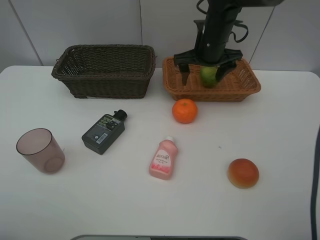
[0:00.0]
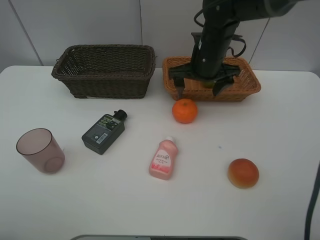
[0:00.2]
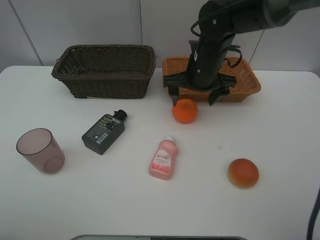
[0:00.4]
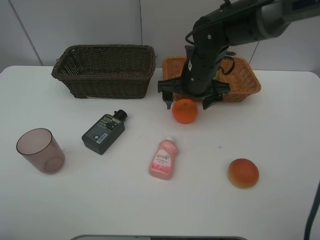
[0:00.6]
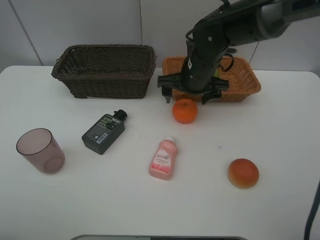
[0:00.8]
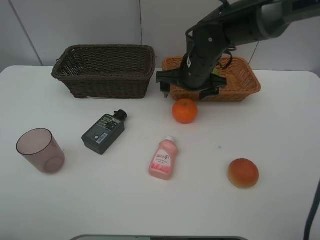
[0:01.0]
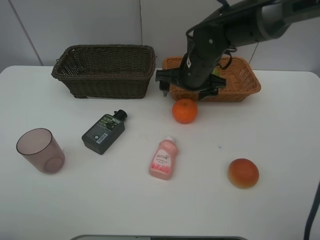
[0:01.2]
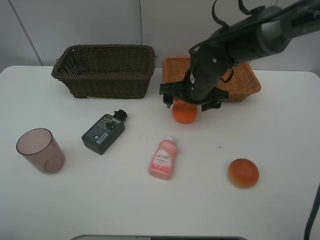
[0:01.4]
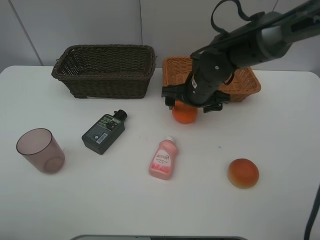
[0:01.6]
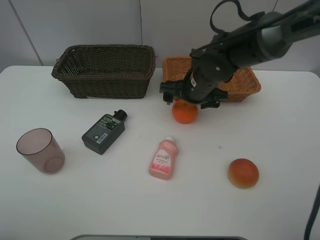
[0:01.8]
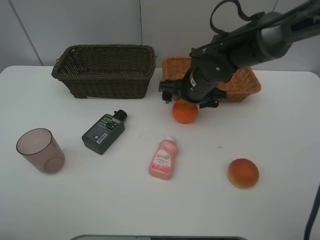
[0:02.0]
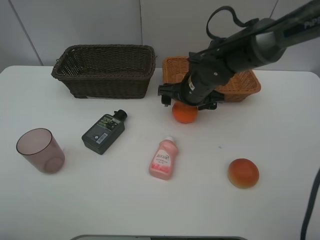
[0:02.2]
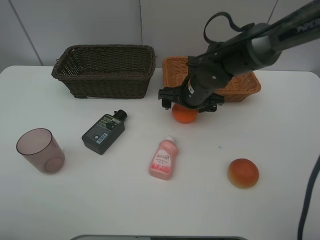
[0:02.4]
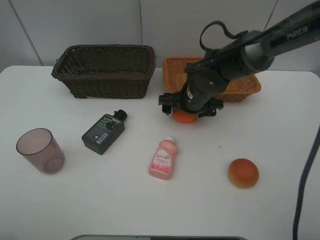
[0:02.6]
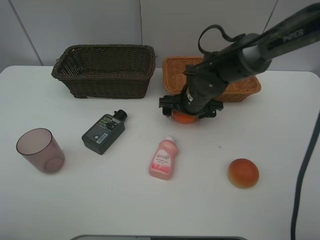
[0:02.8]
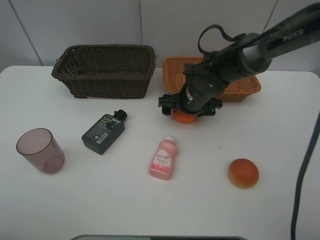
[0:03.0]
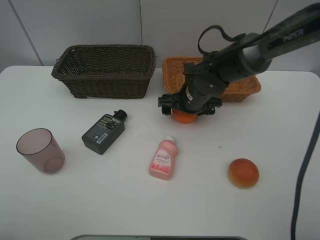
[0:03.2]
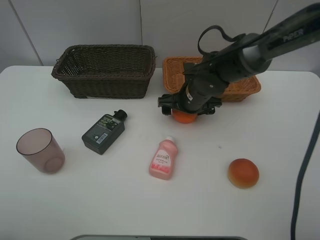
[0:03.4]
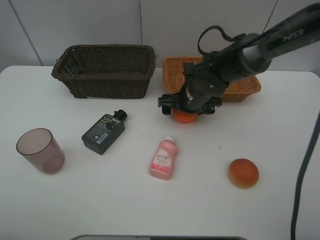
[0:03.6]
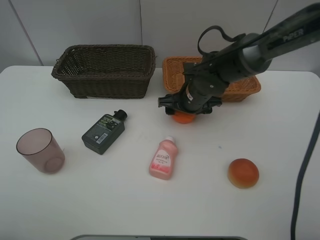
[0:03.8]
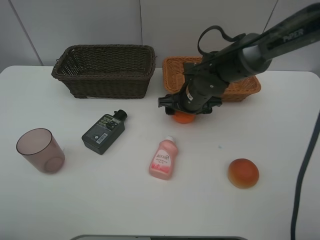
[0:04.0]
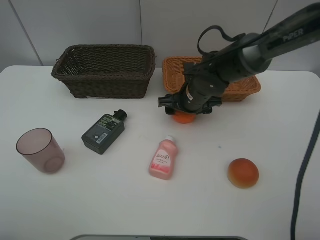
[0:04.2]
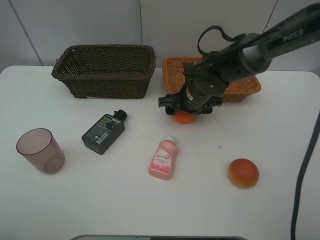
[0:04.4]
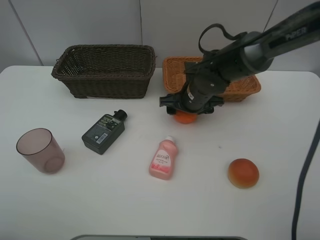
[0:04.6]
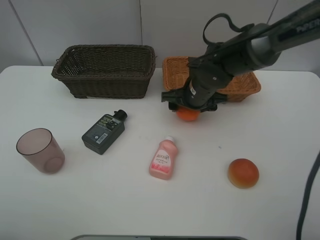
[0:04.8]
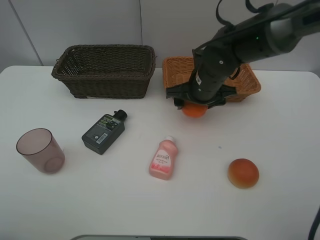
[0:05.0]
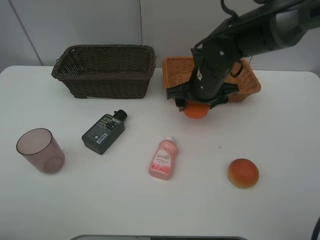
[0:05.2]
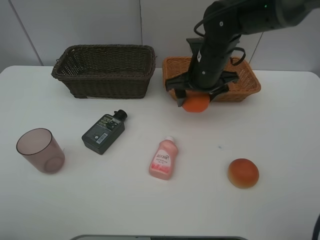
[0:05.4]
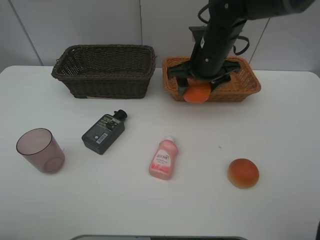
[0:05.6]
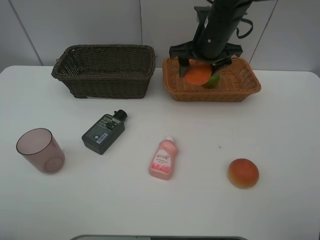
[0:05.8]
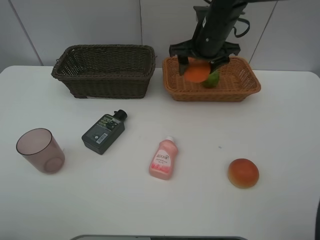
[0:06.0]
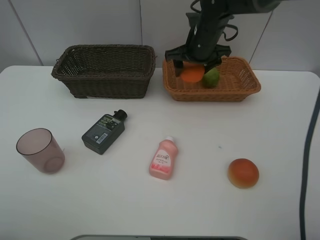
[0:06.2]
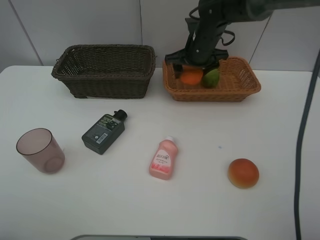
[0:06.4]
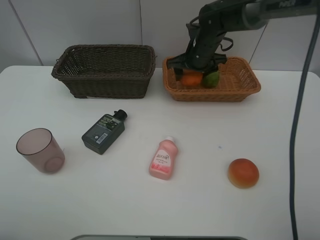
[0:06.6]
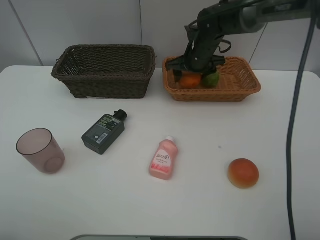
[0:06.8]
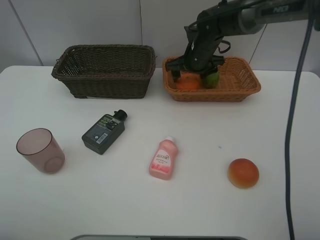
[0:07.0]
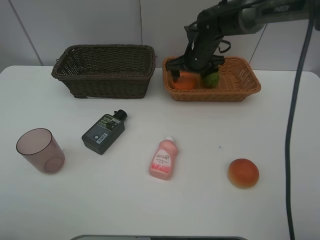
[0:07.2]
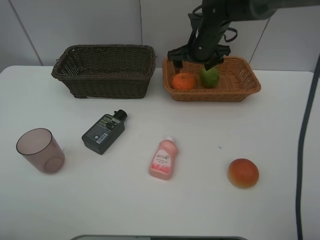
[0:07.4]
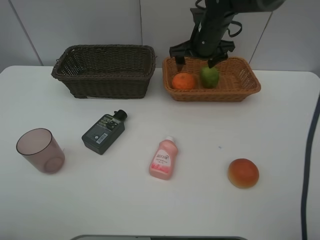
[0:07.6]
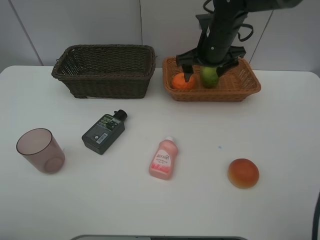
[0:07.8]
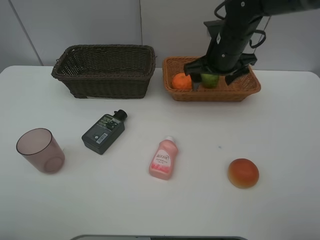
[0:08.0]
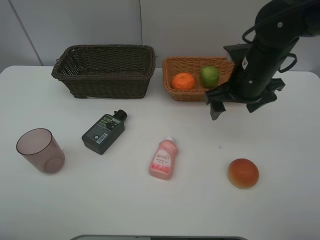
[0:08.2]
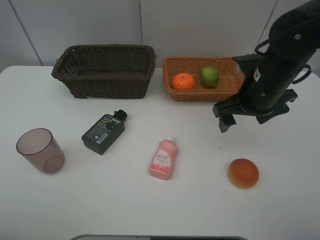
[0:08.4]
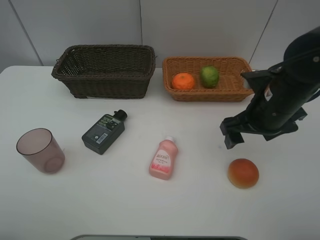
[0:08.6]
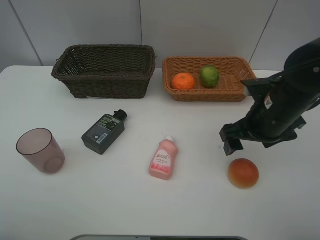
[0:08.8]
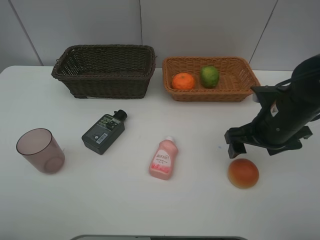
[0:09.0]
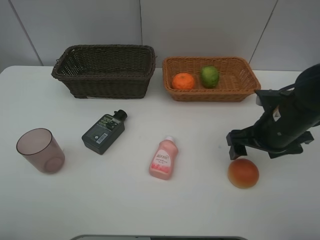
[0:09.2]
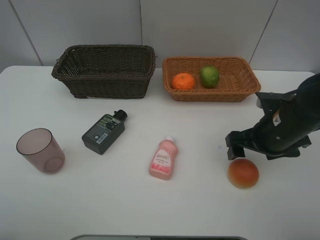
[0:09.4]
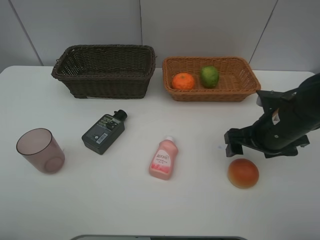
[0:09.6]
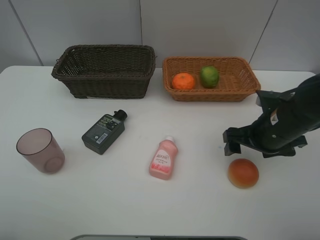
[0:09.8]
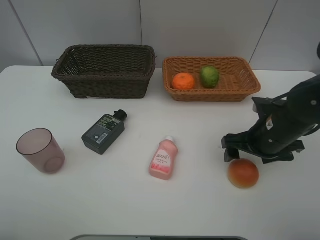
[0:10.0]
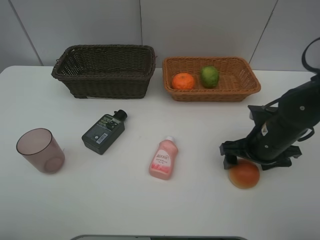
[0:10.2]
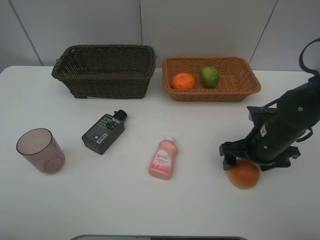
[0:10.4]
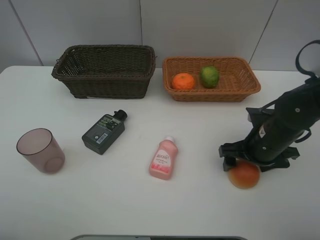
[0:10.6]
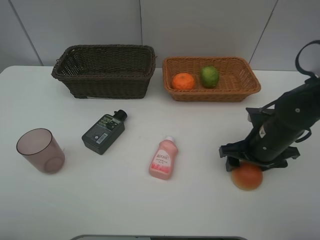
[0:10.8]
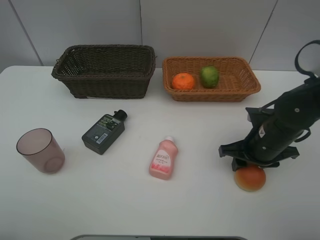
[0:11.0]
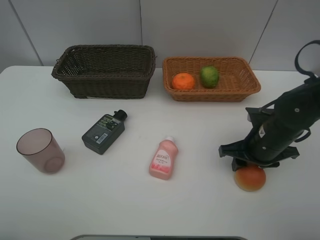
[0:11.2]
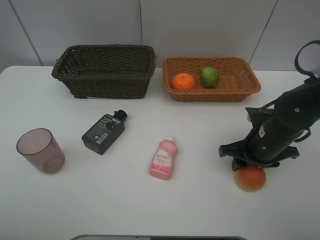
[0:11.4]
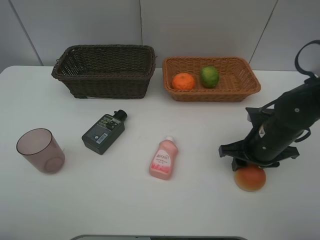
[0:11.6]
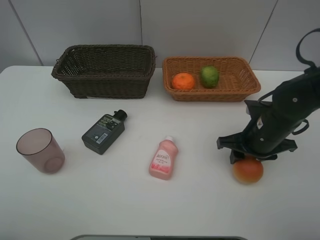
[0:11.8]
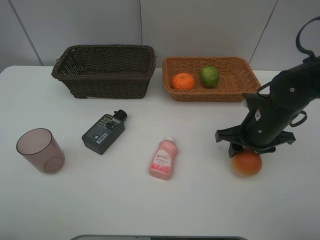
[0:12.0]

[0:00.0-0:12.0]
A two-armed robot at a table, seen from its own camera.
Task of the whole recording: place multiple objects separately in different baskets.
0:00.0 to 0:01.6: The right gripper shifts approximately 10 cm backward and downward.
0:01.6 to 0:03.0: The grippers stay close to where they were, moving slightly.
0:04.4 to 0:06.0: The right gripper shifts some 15 cm upward and forward.
0:07.6 to 0:09.0: The right gripper travels backward and to the right by approximately 25 cm.
0:09.0 to 0:10.4: The right gripper shifts about 5 cm downward.
0:10.4 to 0:12.0: The right gripper closes up.

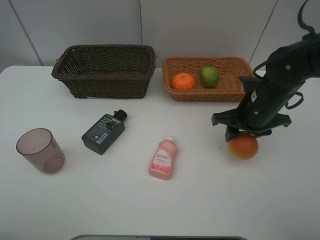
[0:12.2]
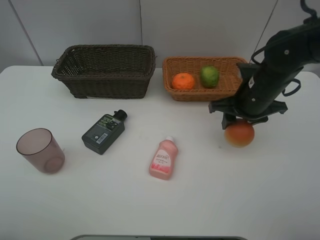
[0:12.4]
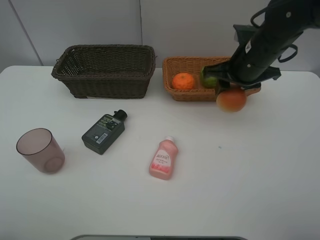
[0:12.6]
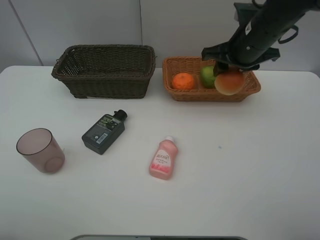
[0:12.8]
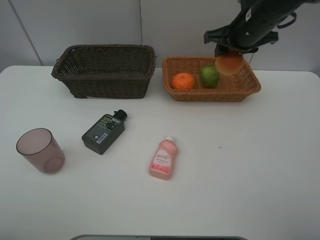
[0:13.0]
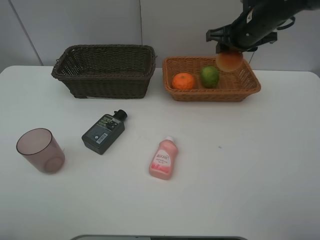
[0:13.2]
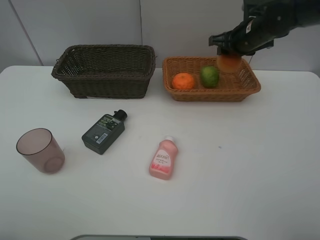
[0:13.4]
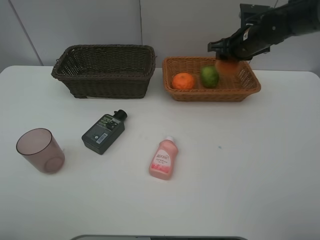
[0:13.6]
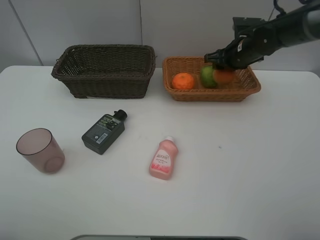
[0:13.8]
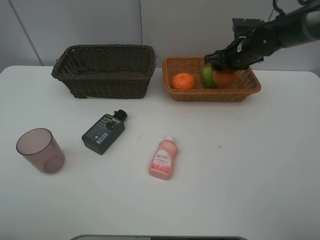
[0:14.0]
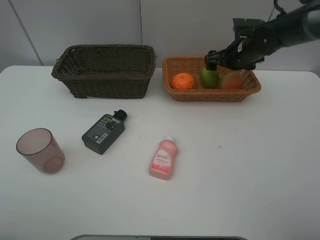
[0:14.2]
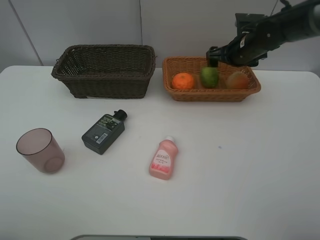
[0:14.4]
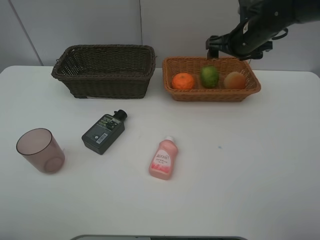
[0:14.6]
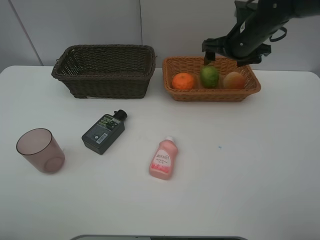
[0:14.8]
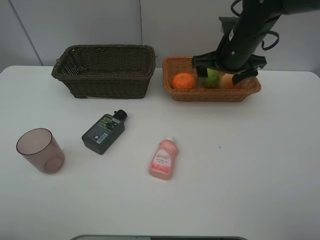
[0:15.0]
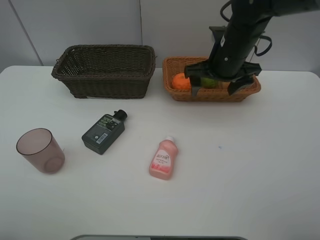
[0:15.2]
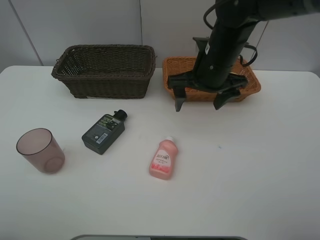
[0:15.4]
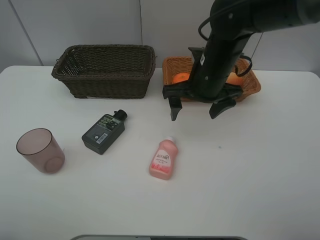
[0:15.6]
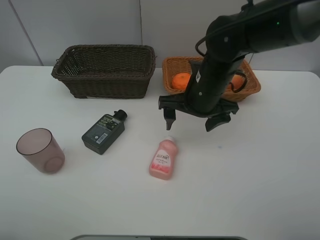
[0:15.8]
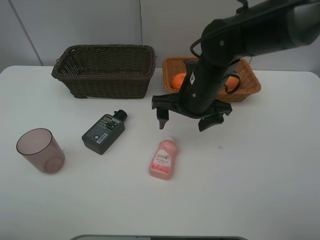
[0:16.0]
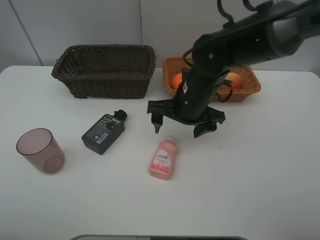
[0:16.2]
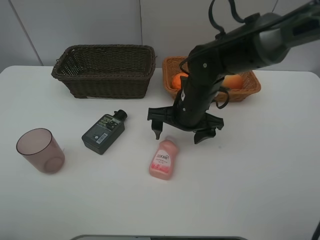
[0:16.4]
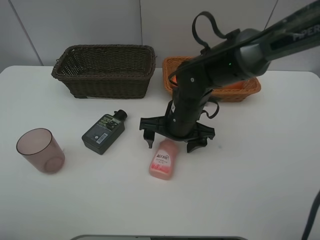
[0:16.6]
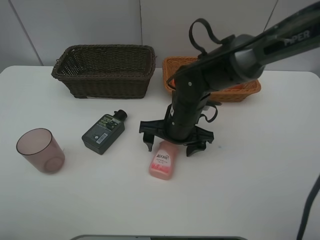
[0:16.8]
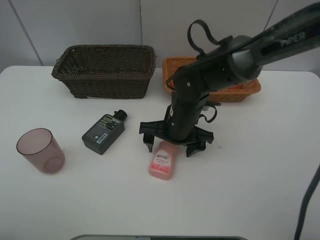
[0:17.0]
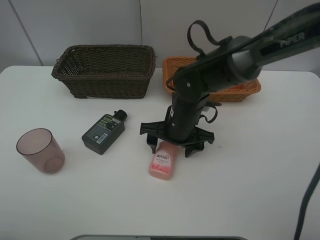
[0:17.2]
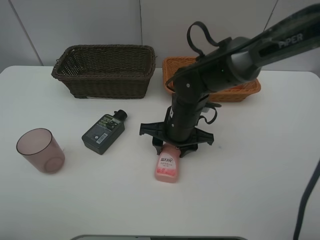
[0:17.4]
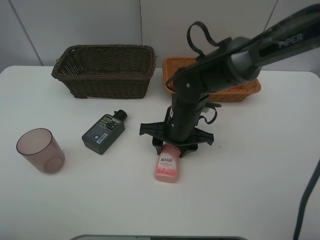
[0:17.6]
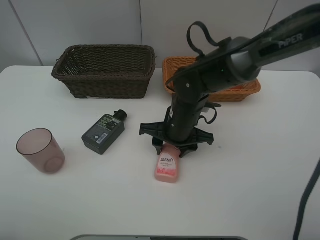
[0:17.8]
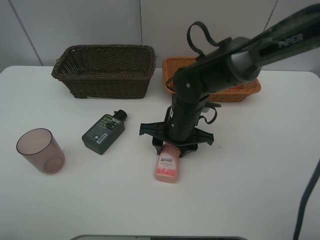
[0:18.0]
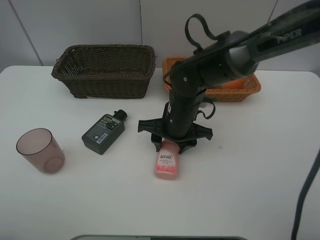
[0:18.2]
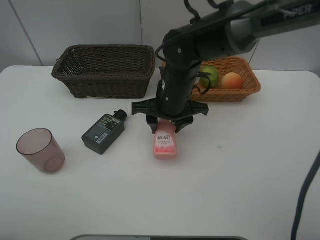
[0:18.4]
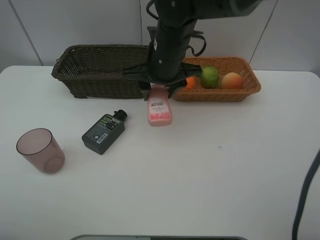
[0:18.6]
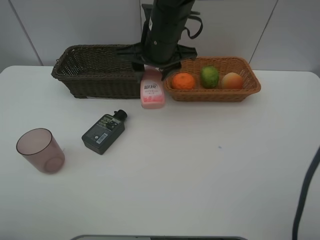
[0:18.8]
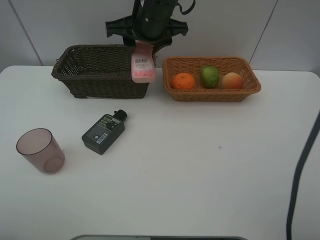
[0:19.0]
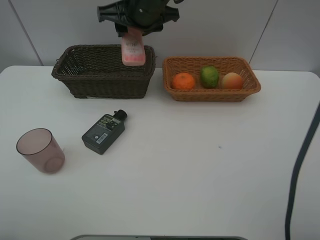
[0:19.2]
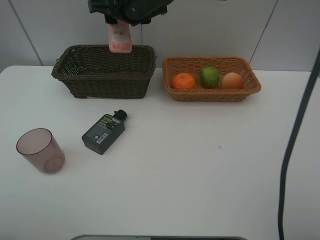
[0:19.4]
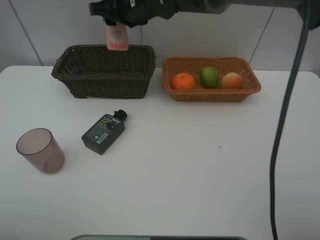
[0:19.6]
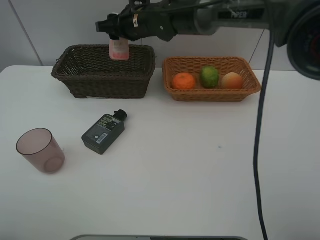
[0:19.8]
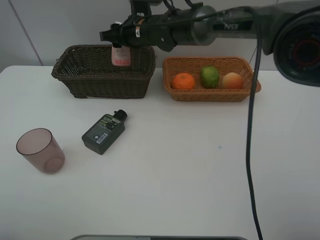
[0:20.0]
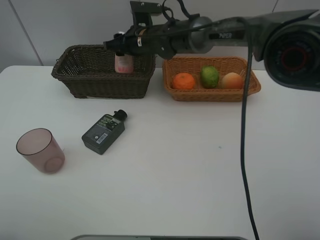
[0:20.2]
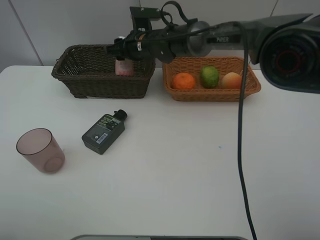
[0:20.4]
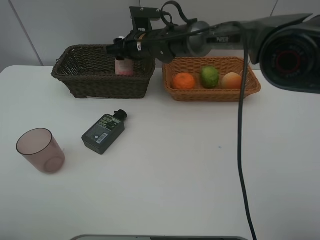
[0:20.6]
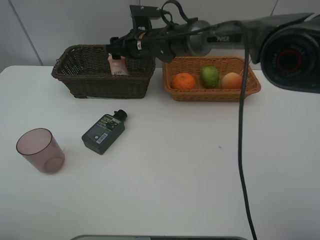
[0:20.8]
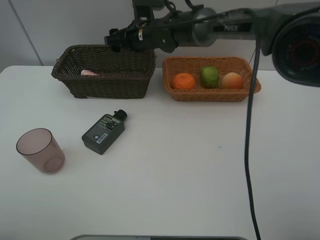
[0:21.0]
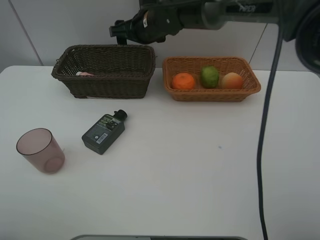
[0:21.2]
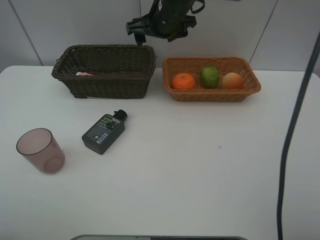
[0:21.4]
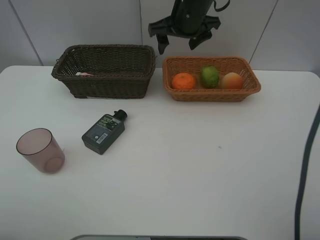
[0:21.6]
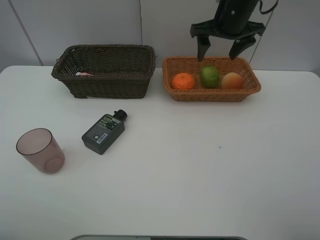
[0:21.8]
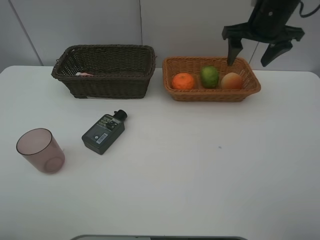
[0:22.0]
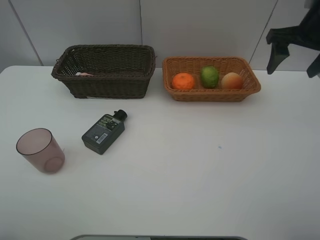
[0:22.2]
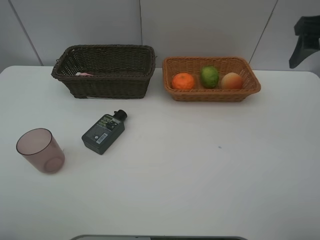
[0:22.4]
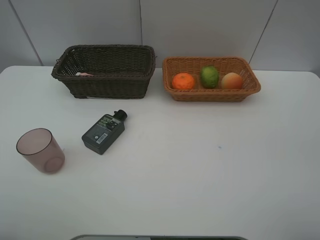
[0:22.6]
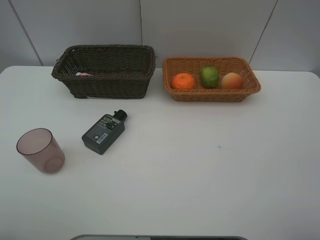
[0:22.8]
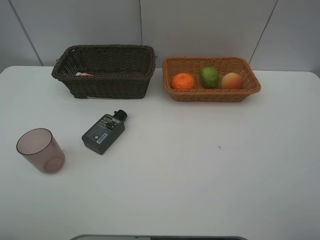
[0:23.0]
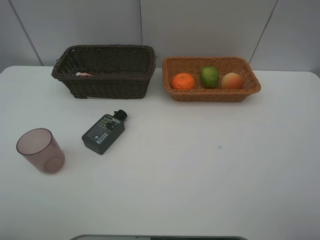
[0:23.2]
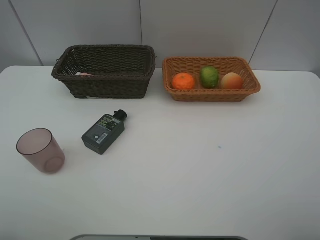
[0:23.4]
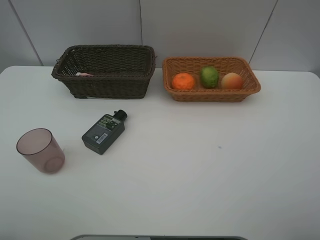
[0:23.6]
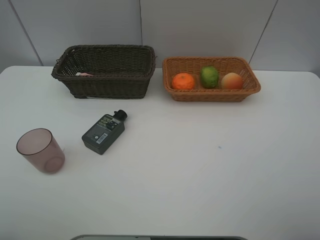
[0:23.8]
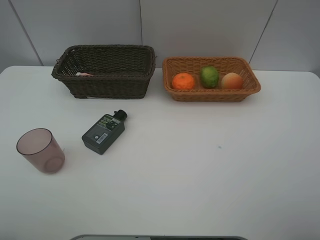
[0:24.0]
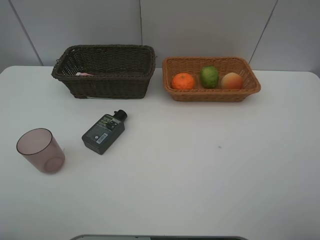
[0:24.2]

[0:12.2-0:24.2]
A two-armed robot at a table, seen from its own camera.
Task of the whole recording: place multiple objects separately in different baskets.
0:12.2 to 0:13.8: The right gripper is displaced forward by about 15 cm.
0:13.8 to 0:15.2: The right gripper shifts roughly 15 cm backward, to the left and upward, and opens its fingers.
0:15.2 to 0:16.6: The right gripper heads downward, to the left and backward, covering some 15 cm.
0:16.6 to 0:18.2: The right gripper closes its fingers.
0:18.2 to 0:19.8: The right gripper travels forward, upward and to the left by roughly 20 cm.
0:19.8 to 0:21.2: The right gripper opens.
0:21.2 to 0:22.6: The right gripper travels to the right, backward and upward by some 40 cm.
